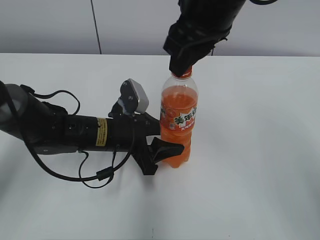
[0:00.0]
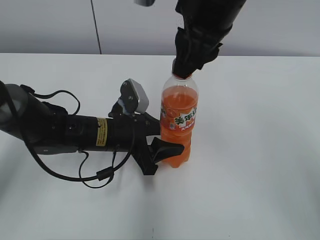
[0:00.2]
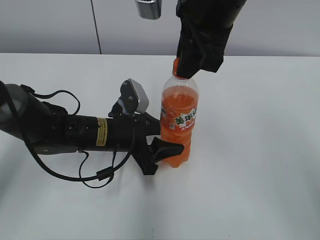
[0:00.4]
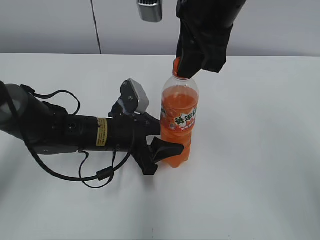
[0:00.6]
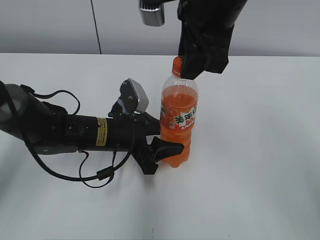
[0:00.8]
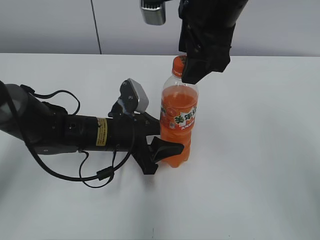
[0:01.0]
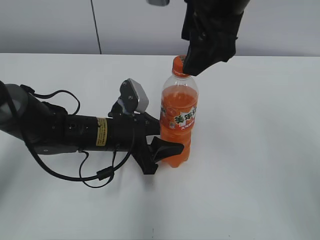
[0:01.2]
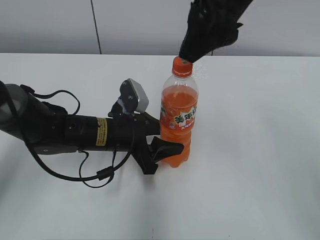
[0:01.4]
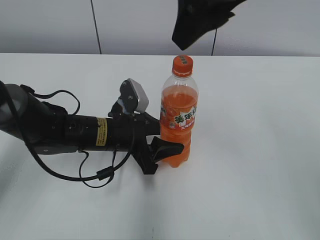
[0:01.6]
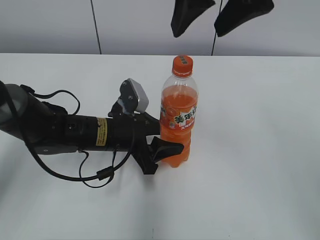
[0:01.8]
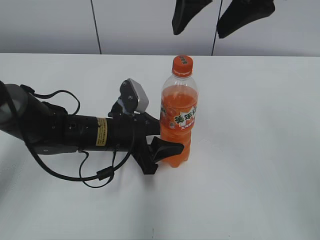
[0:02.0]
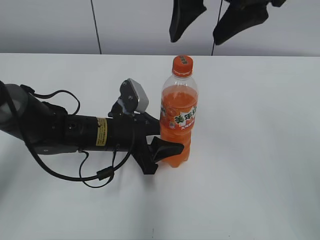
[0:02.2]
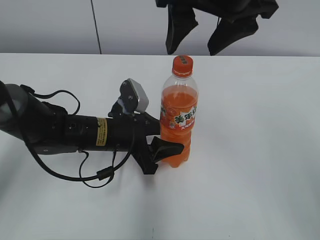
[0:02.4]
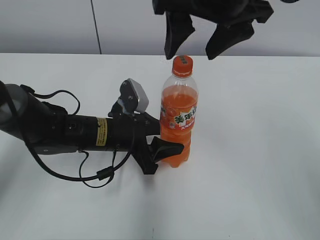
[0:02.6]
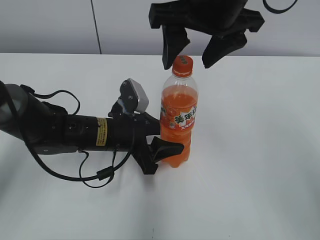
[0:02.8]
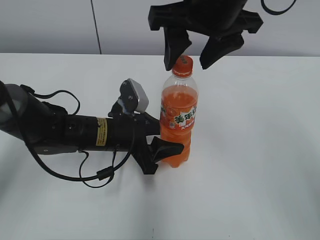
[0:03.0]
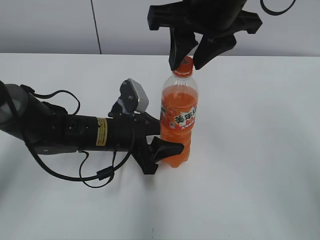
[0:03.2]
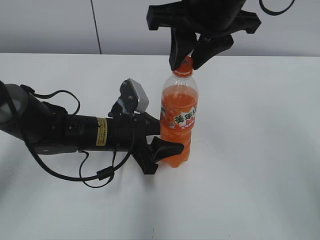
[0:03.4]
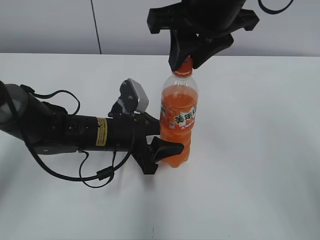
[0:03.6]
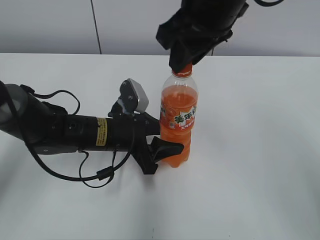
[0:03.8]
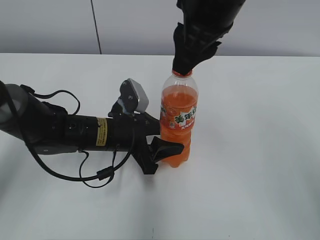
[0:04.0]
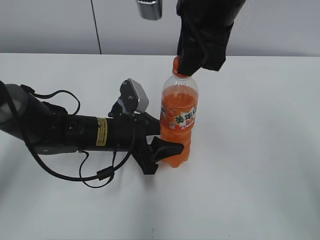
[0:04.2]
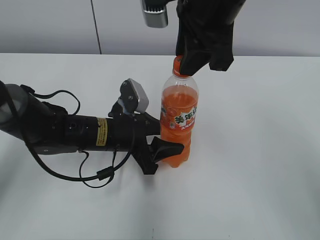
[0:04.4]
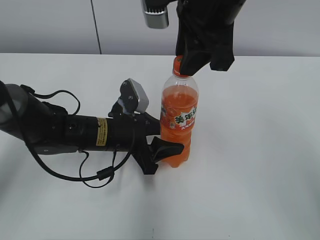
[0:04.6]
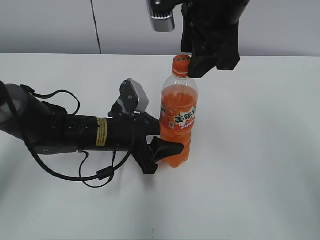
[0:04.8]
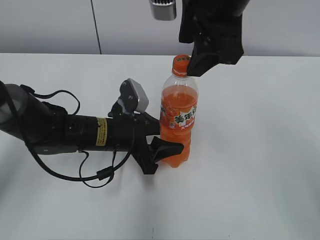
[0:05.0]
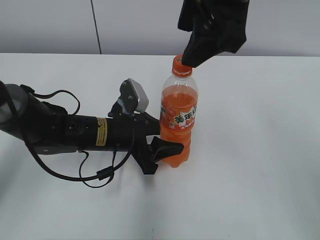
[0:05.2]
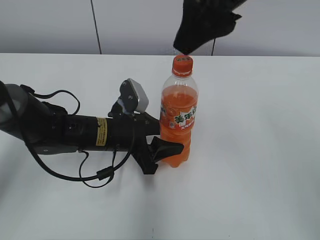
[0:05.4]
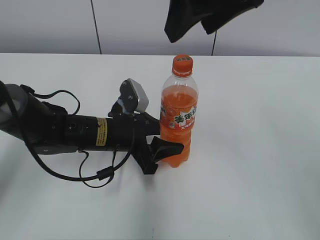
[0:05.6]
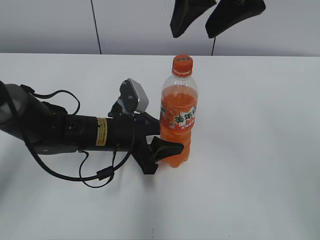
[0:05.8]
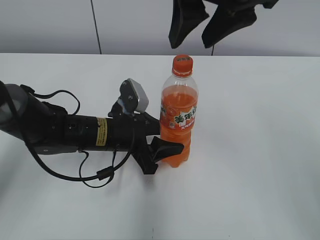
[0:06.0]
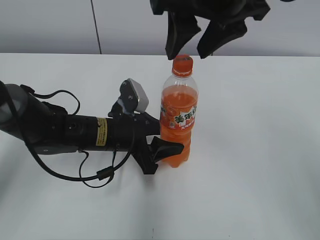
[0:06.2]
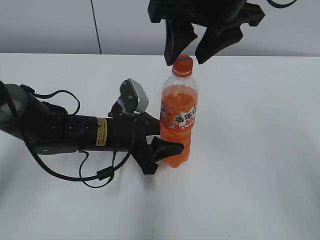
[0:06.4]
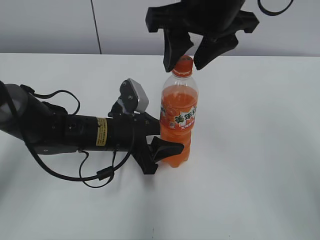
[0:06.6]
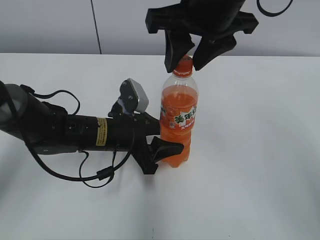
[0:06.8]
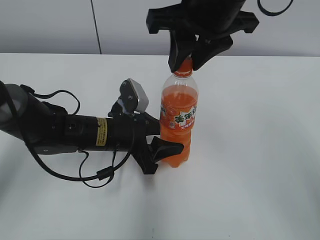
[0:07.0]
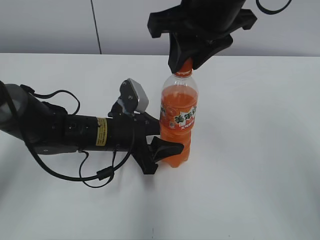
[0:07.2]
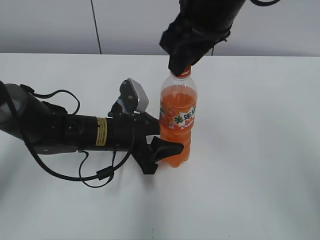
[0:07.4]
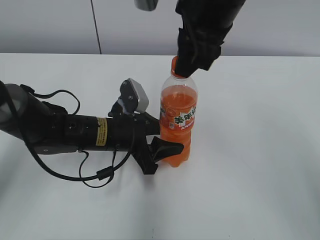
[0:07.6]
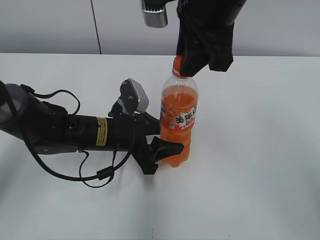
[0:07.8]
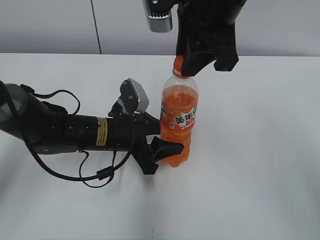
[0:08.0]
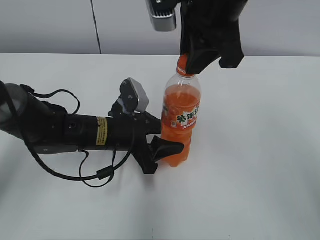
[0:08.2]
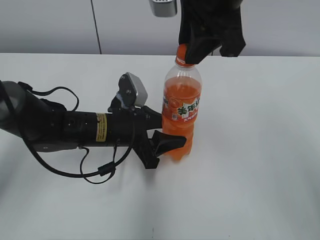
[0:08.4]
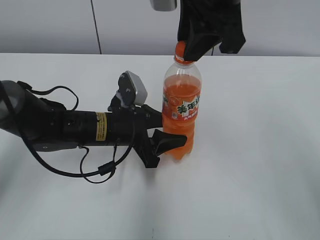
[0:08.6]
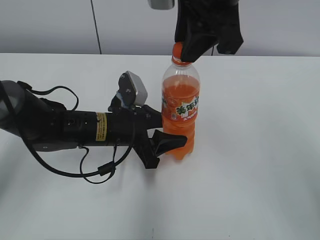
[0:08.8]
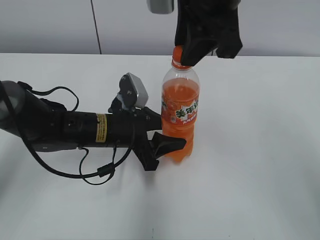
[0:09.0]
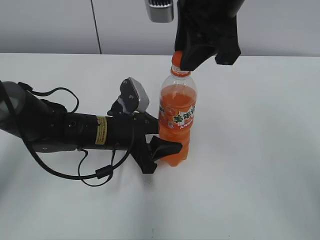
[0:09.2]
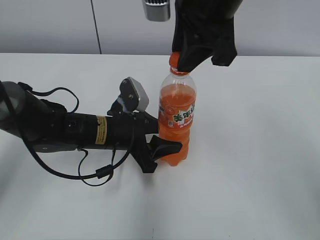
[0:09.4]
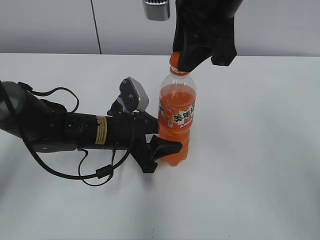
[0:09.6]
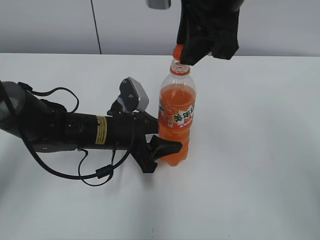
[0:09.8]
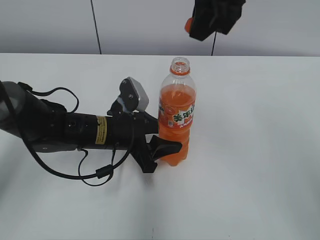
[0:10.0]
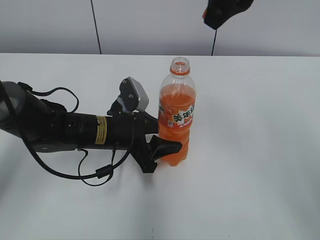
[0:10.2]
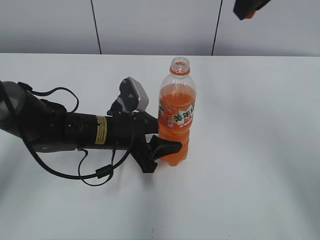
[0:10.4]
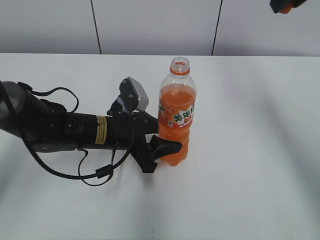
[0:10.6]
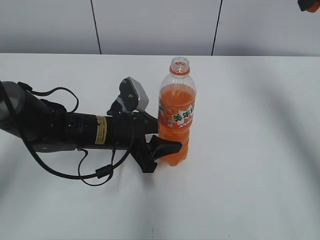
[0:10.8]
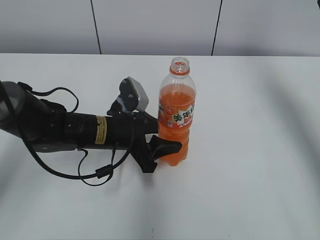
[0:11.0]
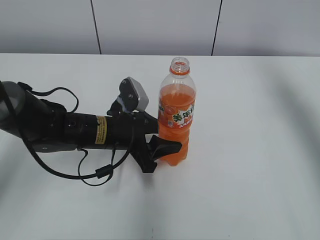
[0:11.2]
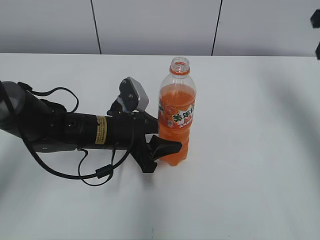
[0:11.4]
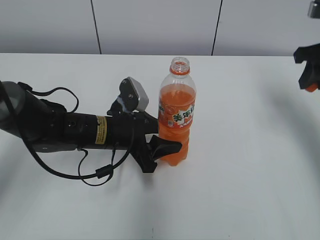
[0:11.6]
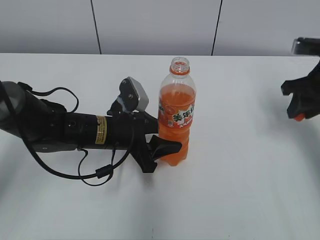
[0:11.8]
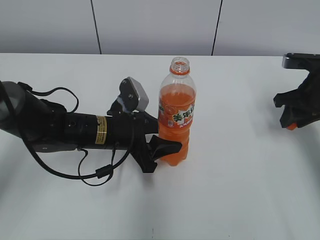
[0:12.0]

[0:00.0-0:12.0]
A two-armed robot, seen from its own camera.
0.0 to 1.6 s: The right gripper moves upward, roughly 5 cm, and opens.
1.6 to 3.0 s: The right gripper moves downward, approximately 5 cm.
3.0 to 4.4 s: The right gripper closes.
4.4 to 6.0 s: The right gripper opens its fingers.
6.0 to 7.6 s: The right gripper closes its fingers.
9.0 to 10.4 s: The right gripper travels to the right by about 10 cm.
10.4 to 12.0 s: The right gripper travels downward and to the right by approximately 25 cm.

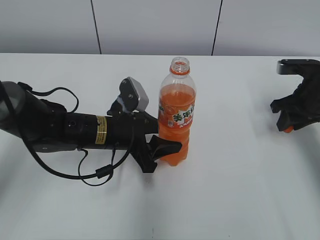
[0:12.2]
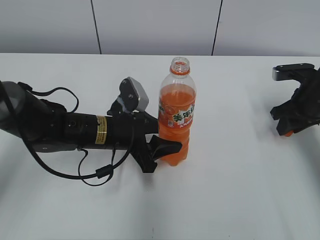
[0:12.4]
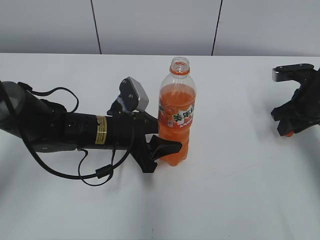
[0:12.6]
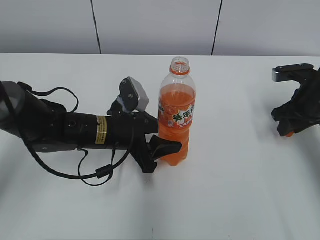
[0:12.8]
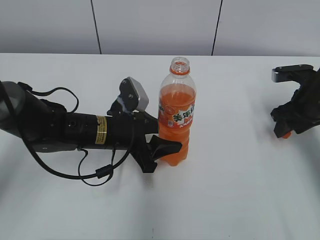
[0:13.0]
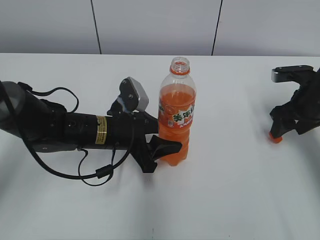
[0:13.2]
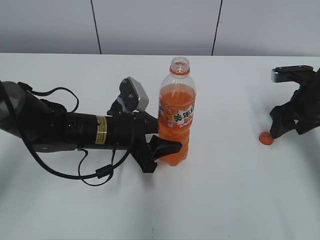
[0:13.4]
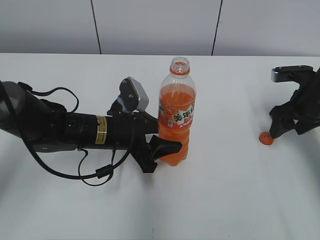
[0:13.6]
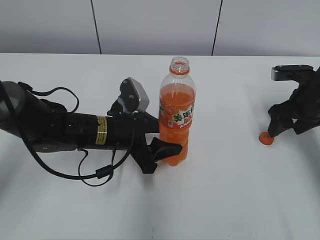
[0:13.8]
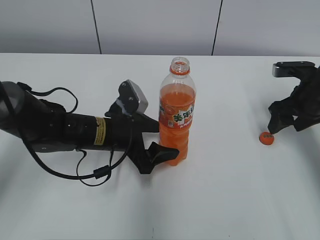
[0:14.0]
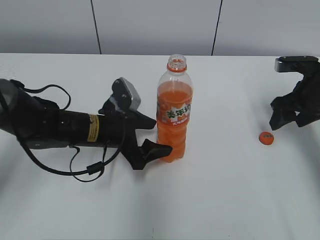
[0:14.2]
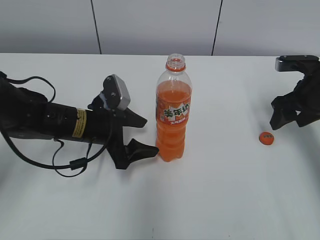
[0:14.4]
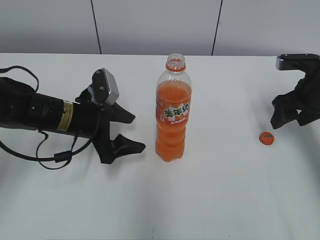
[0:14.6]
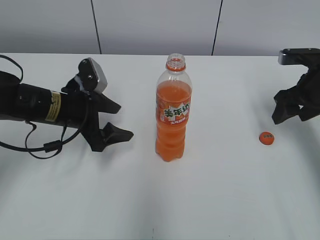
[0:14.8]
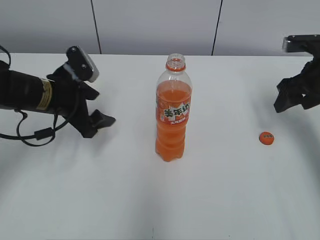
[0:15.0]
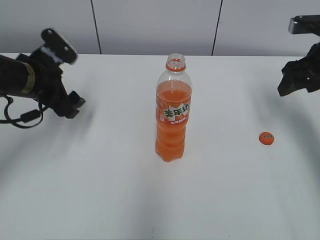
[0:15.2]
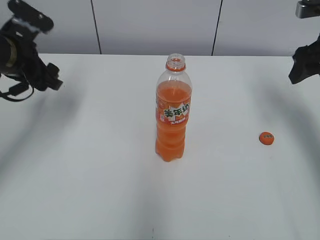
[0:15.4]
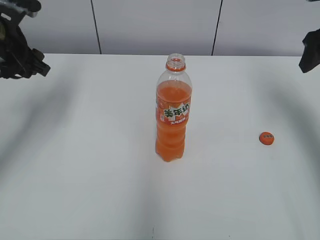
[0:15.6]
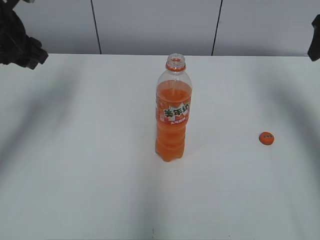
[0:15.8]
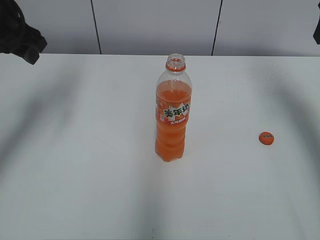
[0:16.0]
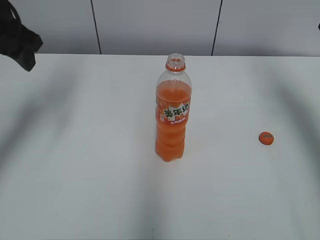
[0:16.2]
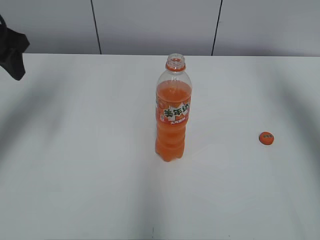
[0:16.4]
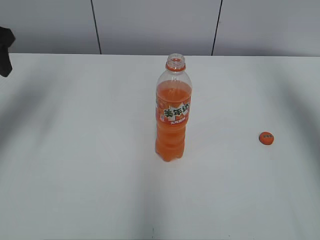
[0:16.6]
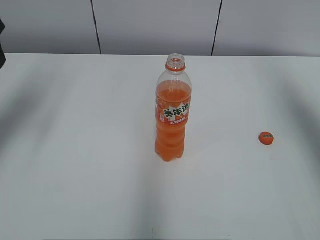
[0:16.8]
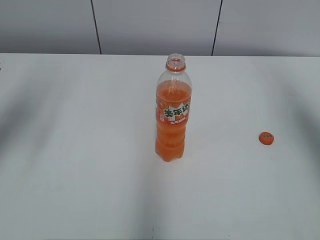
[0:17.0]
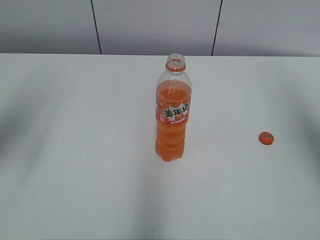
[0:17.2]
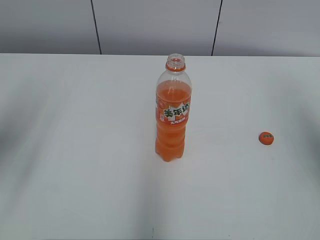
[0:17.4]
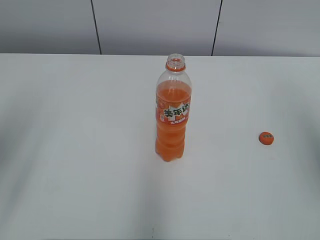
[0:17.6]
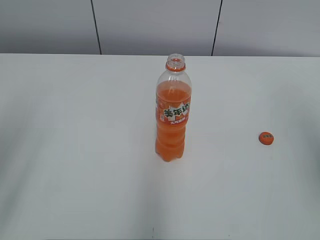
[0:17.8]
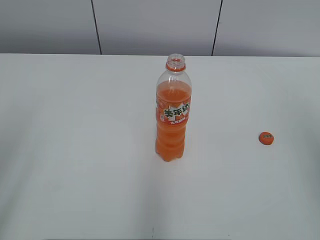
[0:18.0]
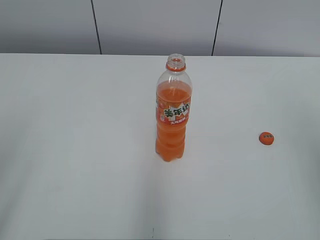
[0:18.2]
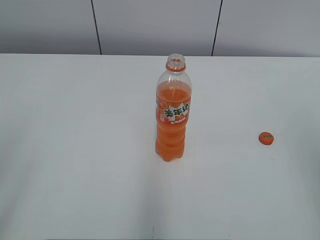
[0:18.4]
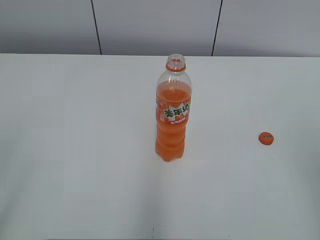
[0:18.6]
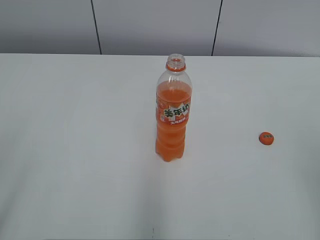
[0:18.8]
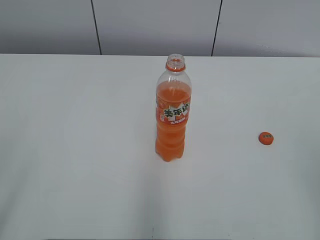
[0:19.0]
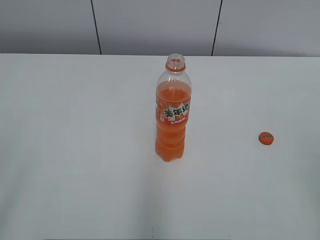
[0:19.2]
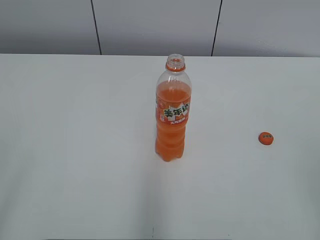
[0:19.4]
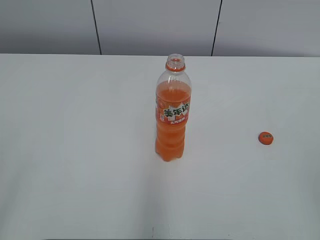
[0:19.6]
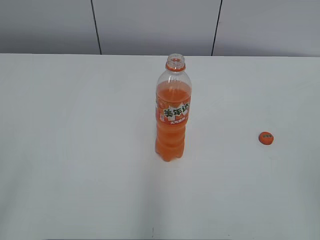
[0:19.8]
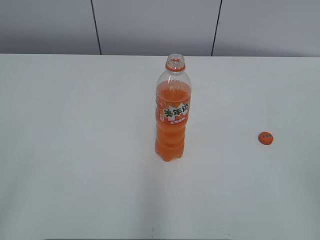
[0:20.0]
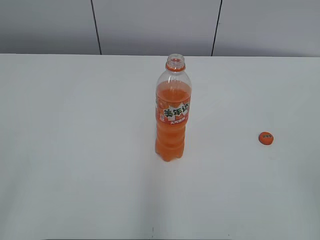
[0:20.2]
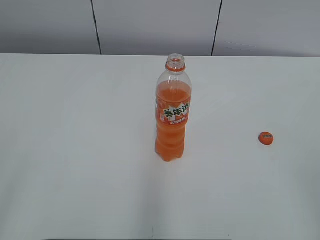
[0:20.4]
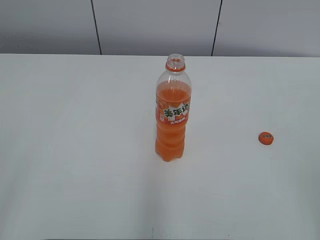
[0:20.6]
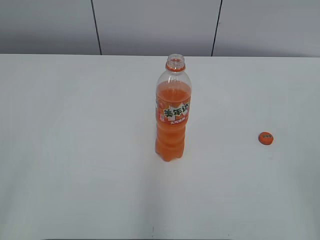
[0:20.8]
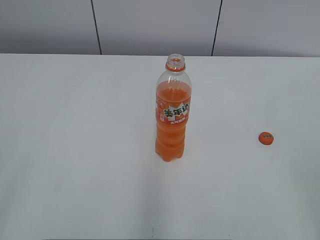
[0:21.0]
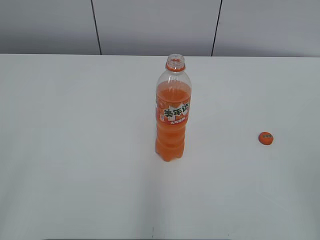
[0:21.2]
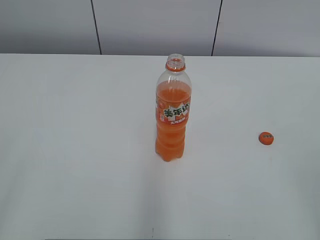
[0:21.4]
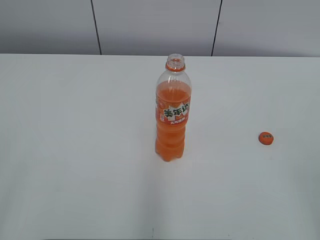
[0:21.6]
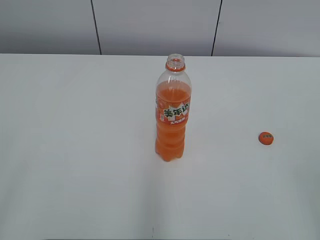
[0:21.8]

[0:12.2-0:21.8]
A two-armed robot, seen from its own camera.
Step, 13.4 to 13.8 s: Place the Mirinda with the left hand.
12.2 to 13.8 s: The right gripper opens its fingers.
13.8 to 15.4 s: The left gripper moves to the left and upward, roughly 20 cm; the right gripper goes about 10 cm upward.
15.4 to 17.0 s: The right gripper moves upward and backward, roughly 20 cm. The left gripper goes about 15 cm upward, backward and to the left.
17.0 to 18.6 s: The right gripper shifts roughly 25 cm backward and downward. The left gripper travels backward by some 25 cm.
20.2 to 21.8 s: Both grippers stay about where they are.

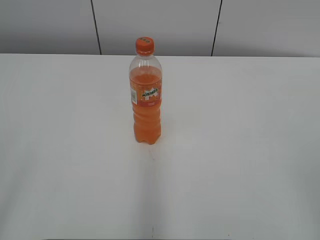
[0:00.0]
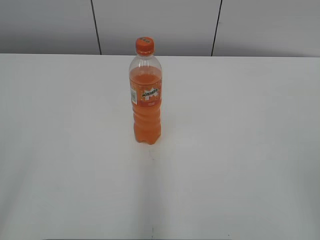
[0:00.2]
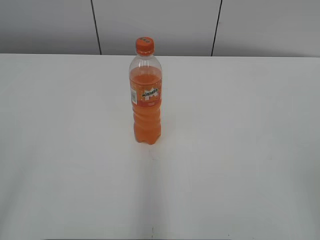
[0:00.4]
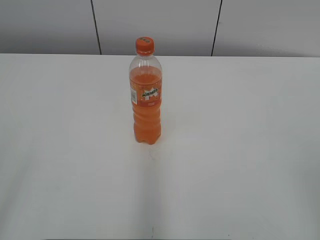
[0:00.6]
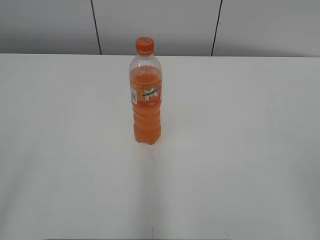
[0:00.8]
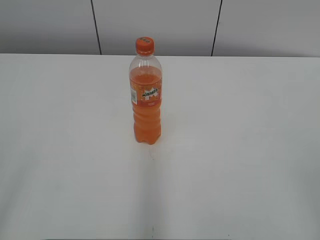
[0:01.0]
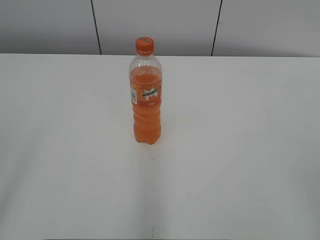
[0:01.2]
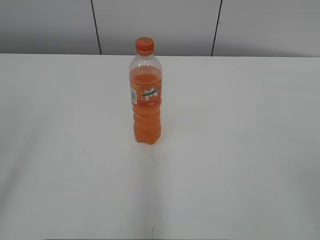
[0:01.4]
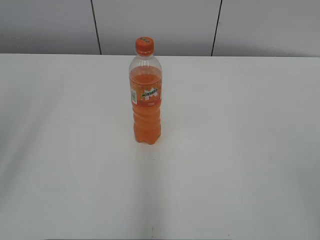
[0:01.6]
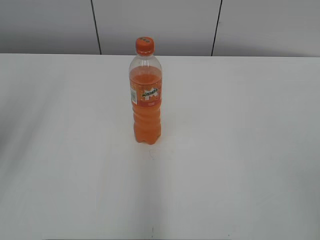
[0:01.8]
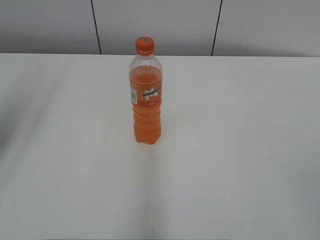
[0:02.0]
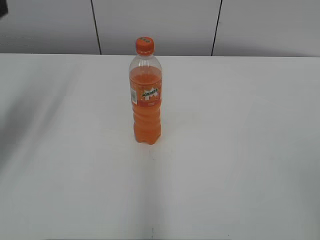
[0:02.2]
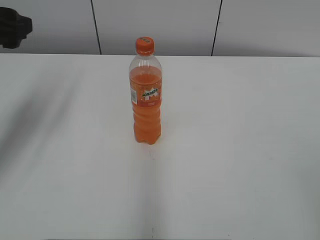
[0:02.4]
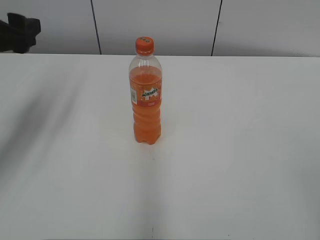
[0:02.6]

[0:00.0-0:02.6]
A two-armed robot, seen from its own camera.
1.2 to 2.6 s: The left gripper is displaced forward by roughly 30 cm.
